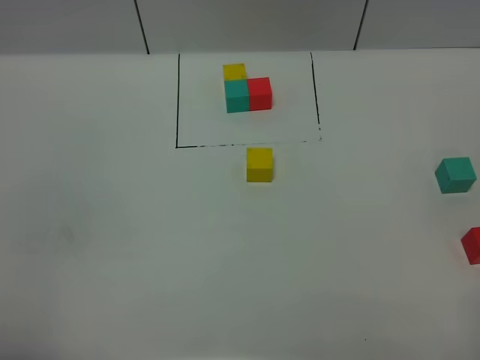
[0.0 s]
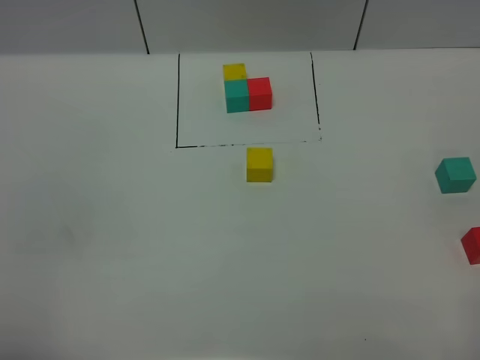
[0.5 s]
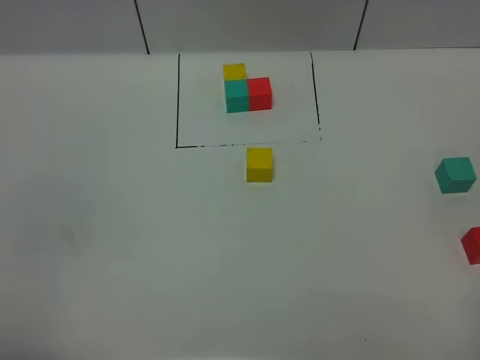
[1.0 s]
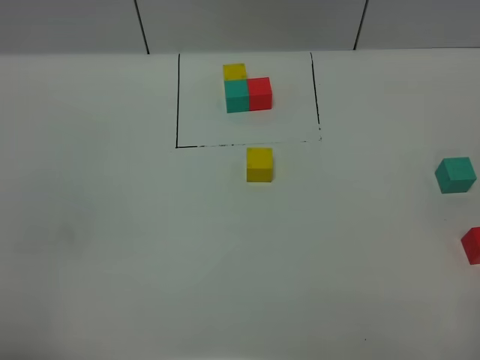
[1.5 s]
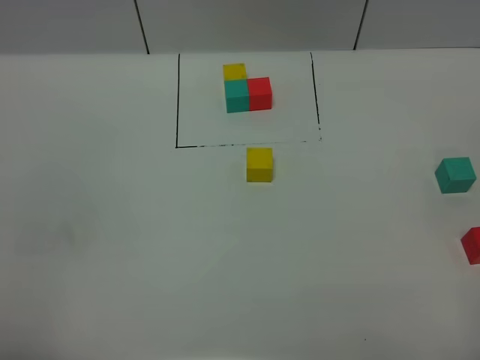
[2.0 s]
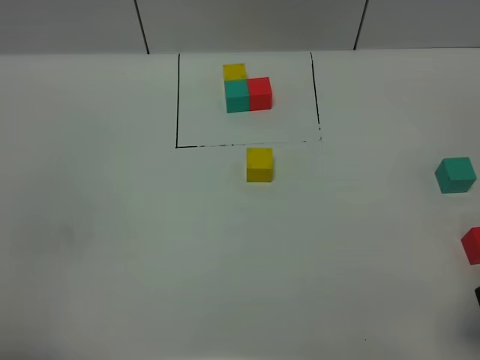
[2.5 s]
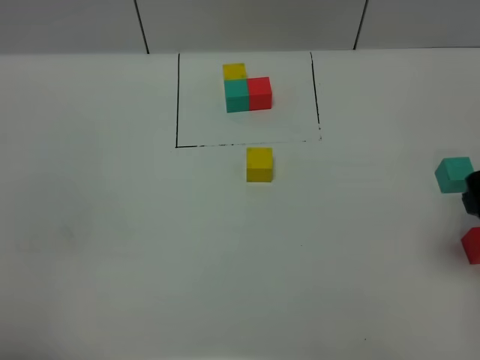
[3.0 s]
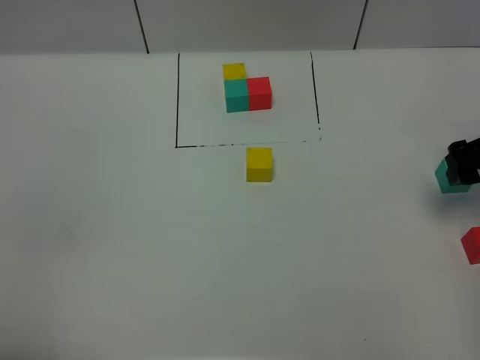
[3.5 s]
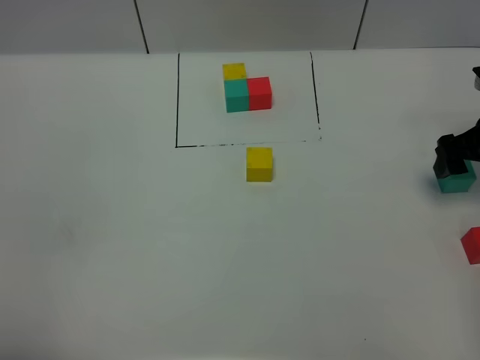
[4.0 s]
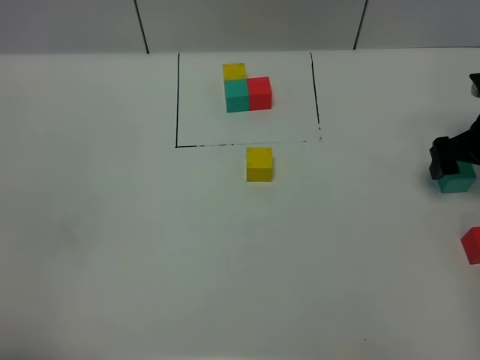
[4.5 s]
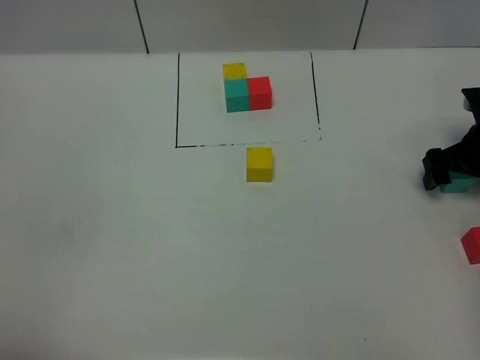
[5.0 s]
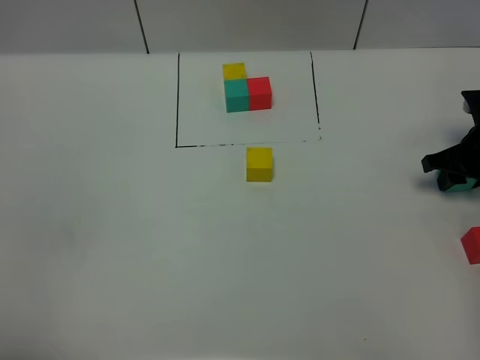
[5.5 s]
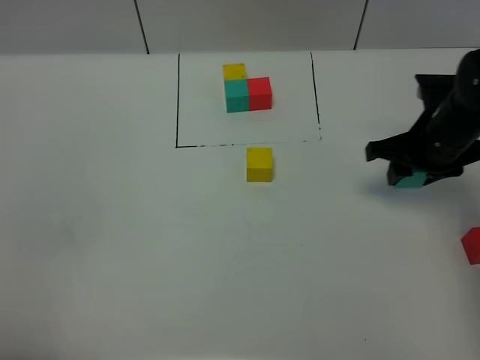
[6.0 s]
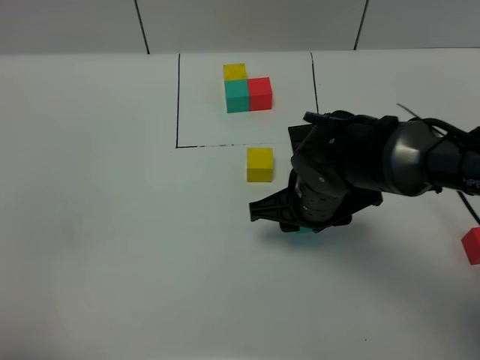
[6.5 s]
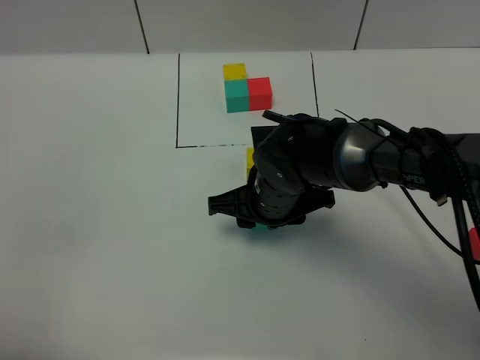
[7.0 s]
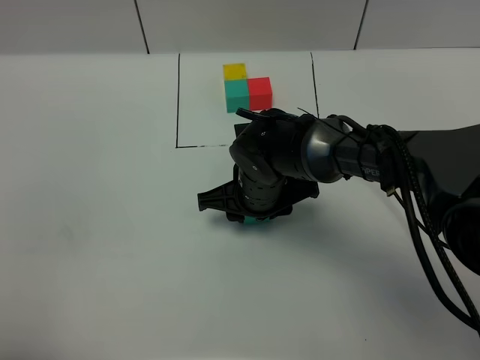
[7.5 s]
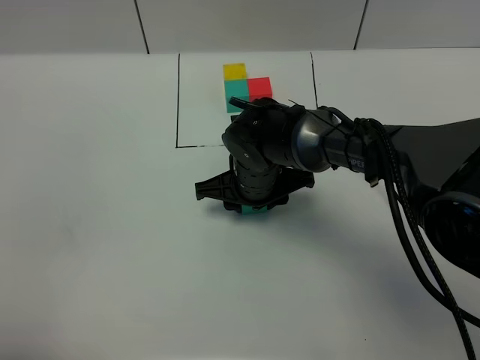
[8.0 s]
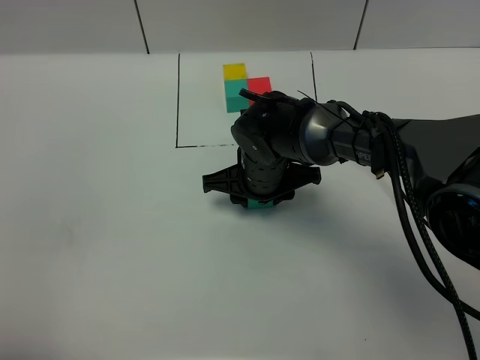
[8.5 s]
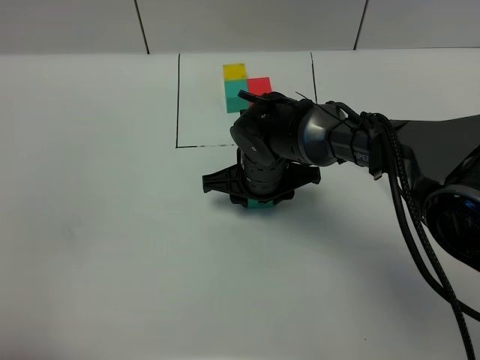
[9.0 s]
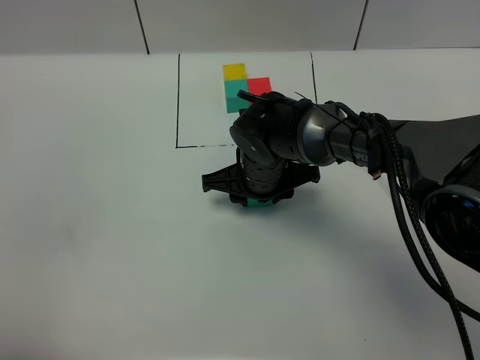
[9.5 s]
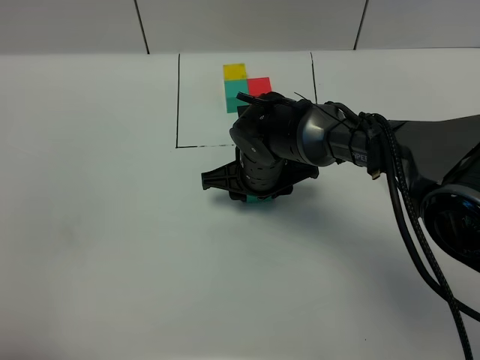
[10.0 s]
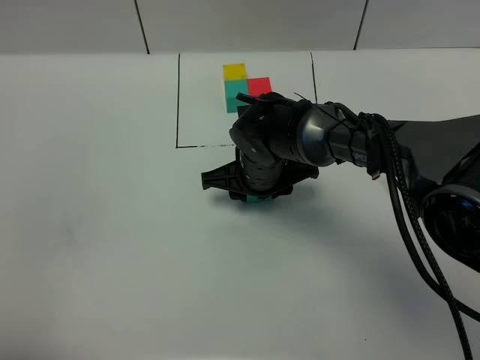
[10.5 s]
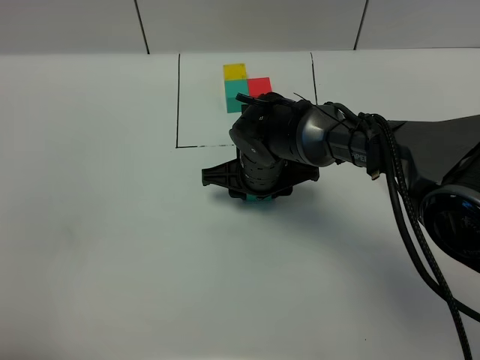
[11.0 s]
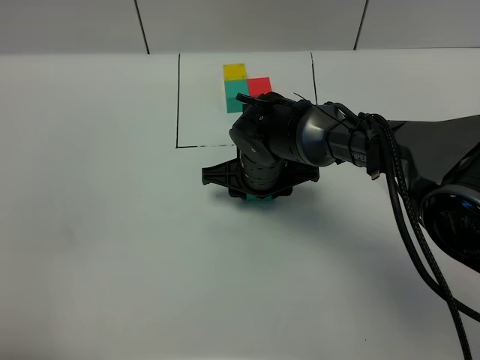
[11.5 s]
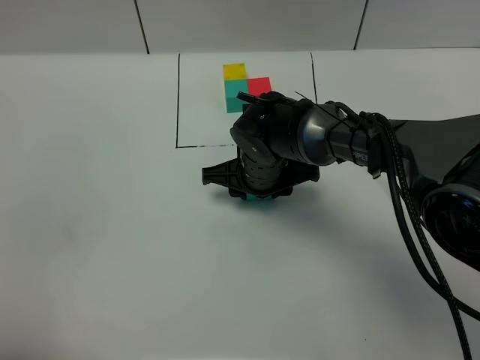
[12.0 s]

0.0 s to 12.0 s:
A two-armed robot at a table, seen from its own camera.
Task of the whole recording: According to the building block template in front, assemble the scattered blocks together.
2.0 to 4.0 s: The right gripper heads forward, covering some 35 cm.
4.0 to 6.0 s: The right gripper goes roughly 10 cm to the left, and closes.
6.0 to 8.0 s: The right gripper shifts approximately 20 cm to the left.
8.0 to 12.0 s: The grippers stay close to where they were, moving slightly.

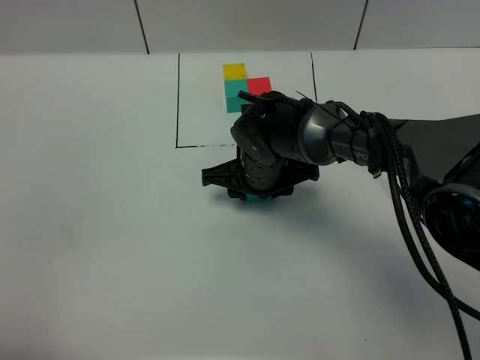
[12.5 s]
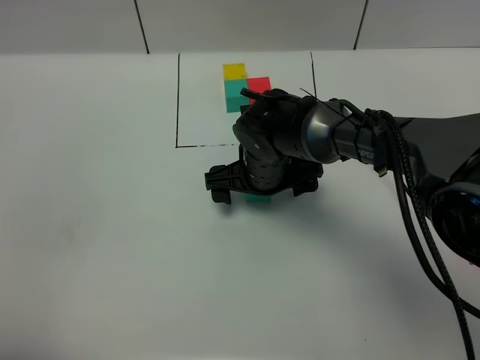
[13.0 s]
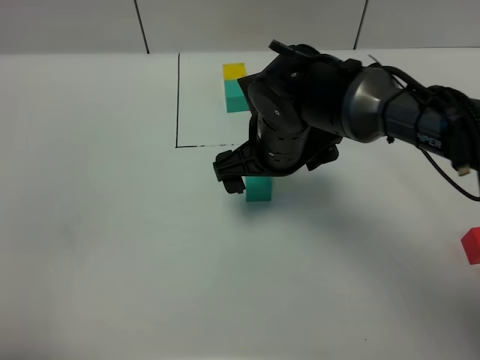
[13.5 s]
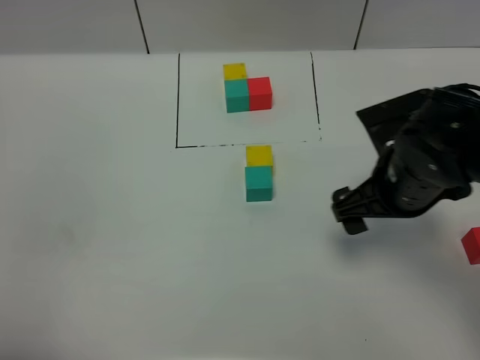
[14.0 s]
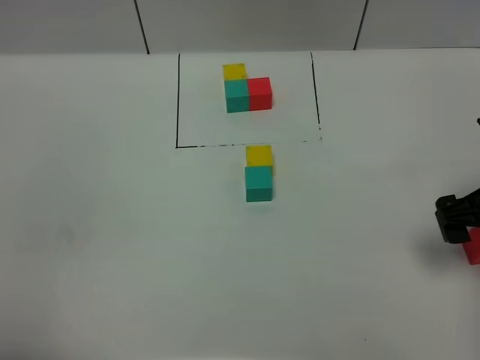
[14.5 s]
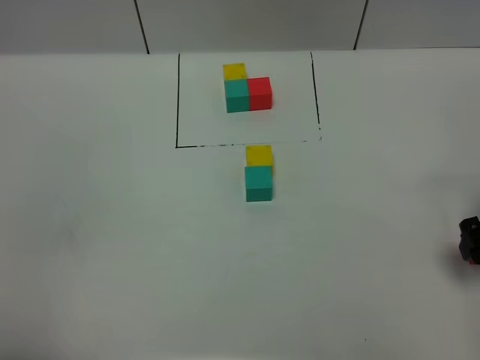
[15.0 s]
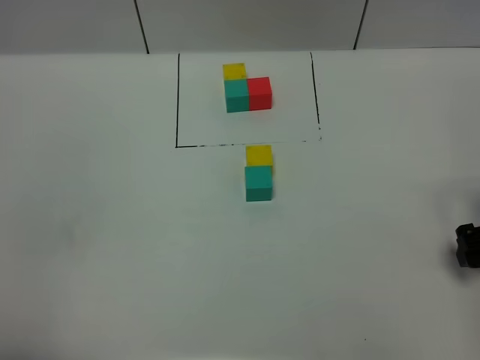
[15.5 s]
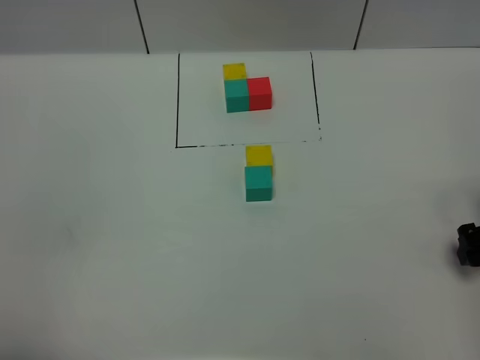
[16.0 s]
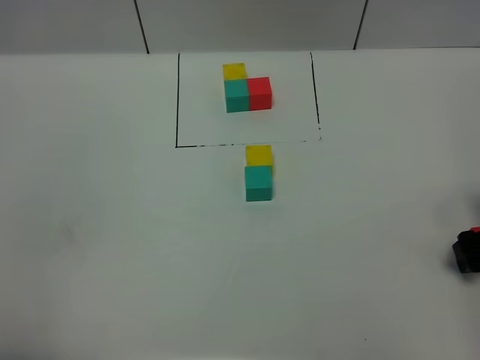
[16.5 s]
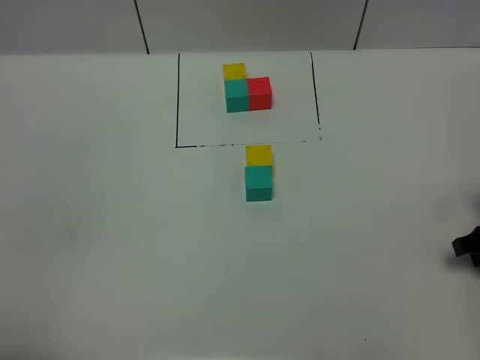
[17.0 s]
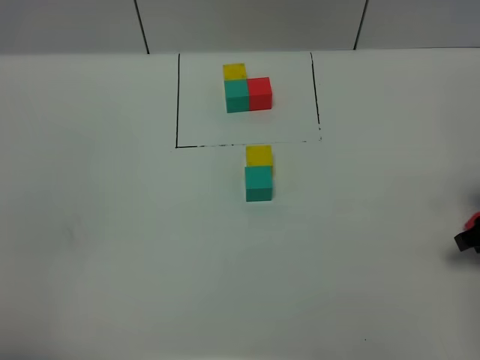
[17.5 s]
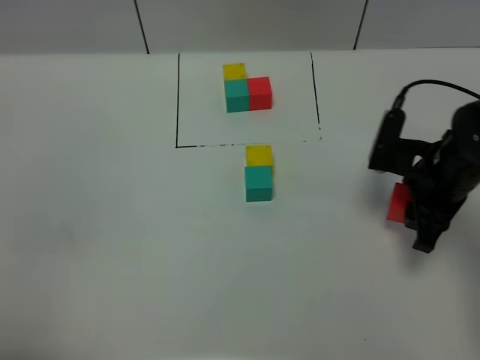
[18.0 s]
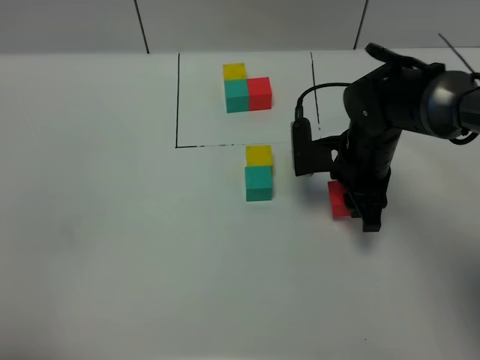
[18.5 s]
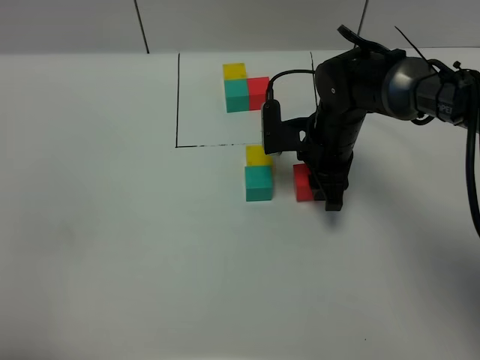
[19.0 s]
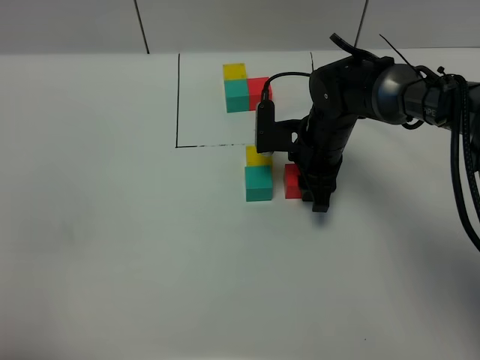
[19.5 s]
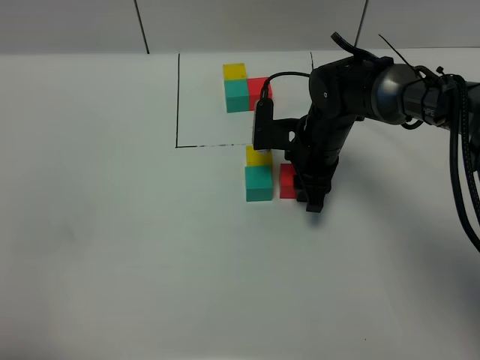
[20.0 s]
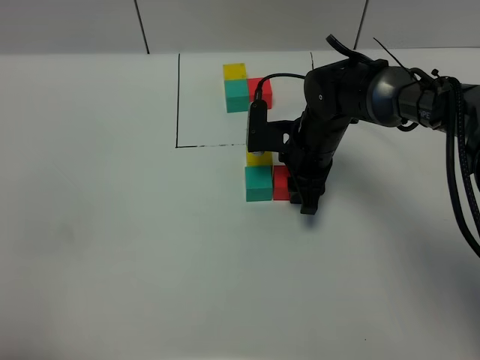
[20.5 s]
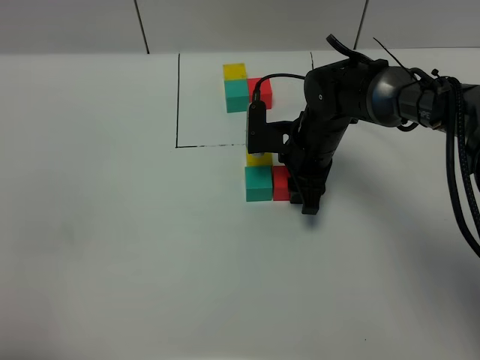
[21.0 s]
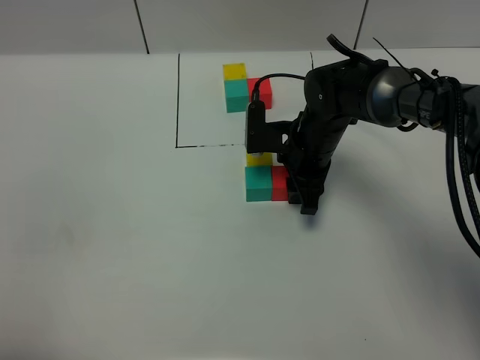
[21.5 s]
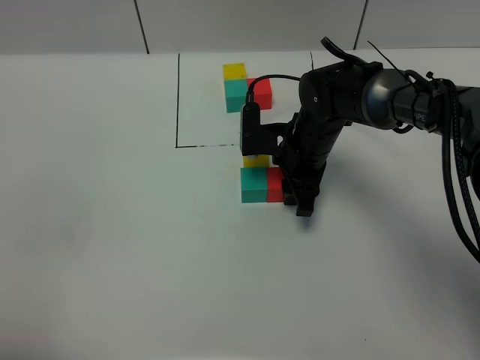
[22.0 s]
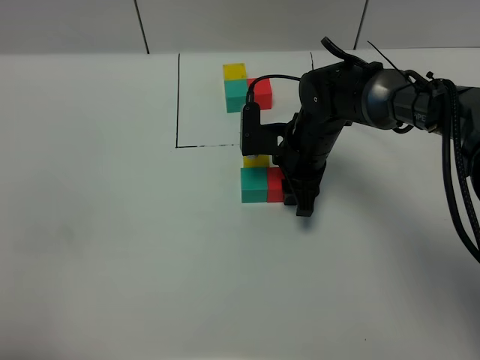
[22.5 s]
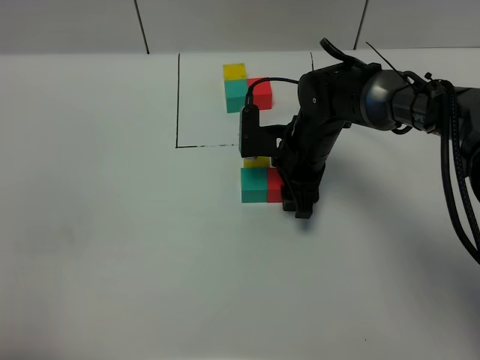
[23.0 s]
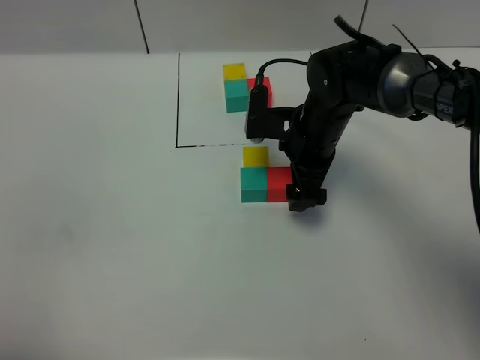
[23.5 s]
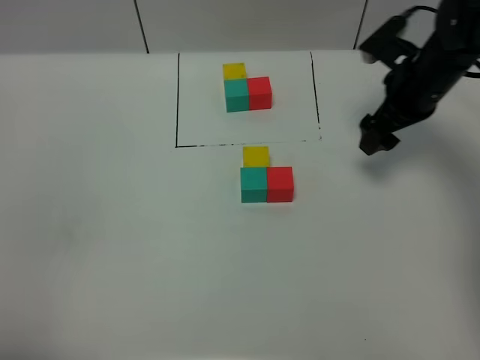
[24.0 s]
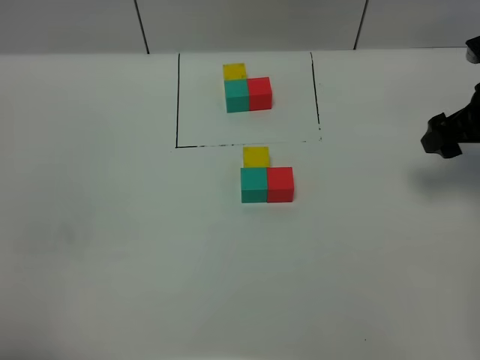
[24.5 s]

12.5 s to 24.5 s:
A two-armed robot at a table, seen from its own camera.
Task of the whole recording: According to the building block template in front, assemble the scattered blocks together.
Step, 13.0 to 23.0 s: Put the red build block on the right of the green build block.
12.5 to 14.5 s: The right gripper travels to the right and backward by about 30 cm, and opens up.
14.5 to 16.5 s: The right gripper travels downward and to the right by about 10 cm.
16.5 to 18.5 s: The right gripper moves to the left and forward, about 20 cm, and closes up.
18.5 to 20.5 s: The right gripper shifts by approximately 5 cm.
20.5 to 22.5 s: Neither gripper changes place.
22.5 to 24.5 s: The right gripper moves to the right and upward, about 25 cm, and opens its fingers.

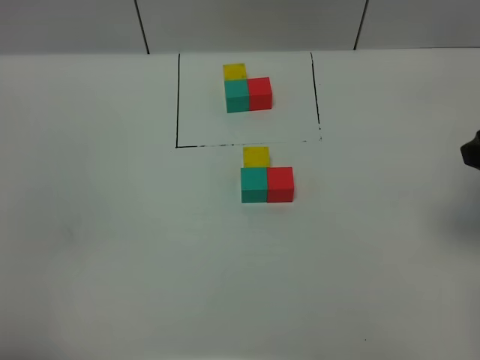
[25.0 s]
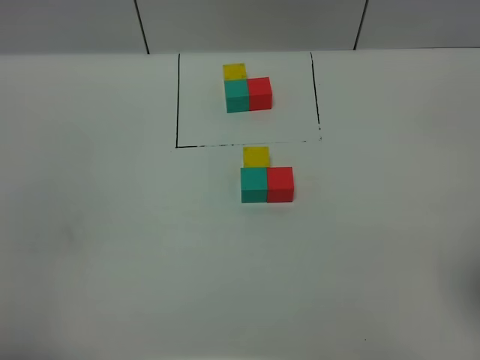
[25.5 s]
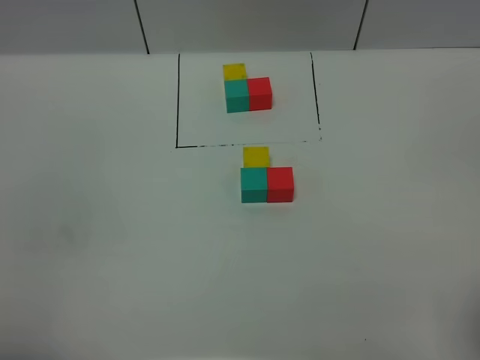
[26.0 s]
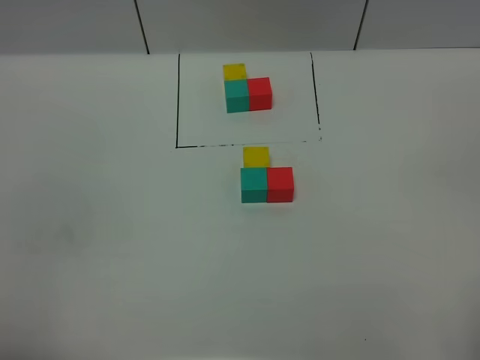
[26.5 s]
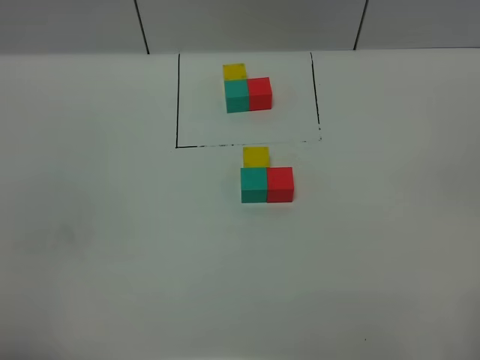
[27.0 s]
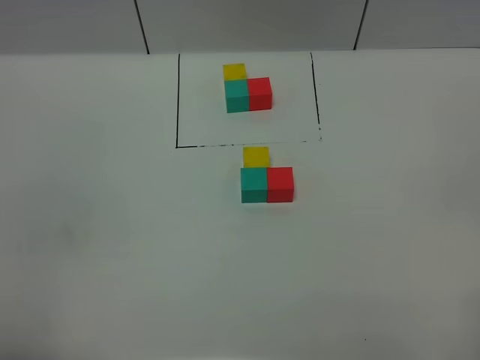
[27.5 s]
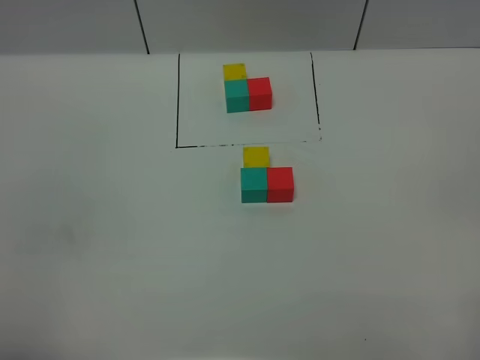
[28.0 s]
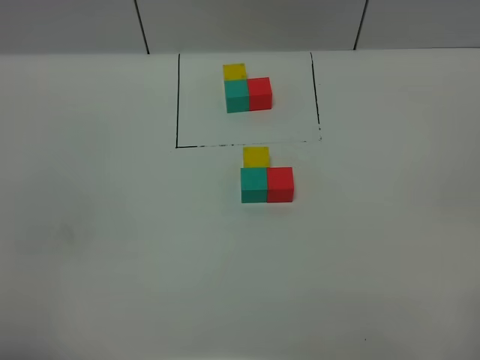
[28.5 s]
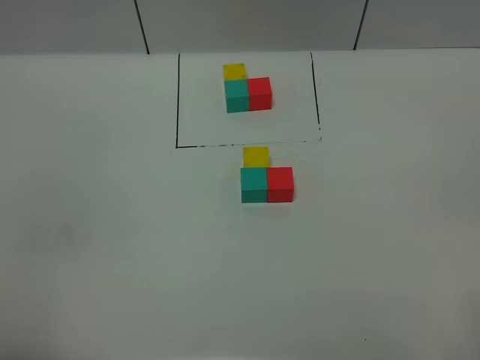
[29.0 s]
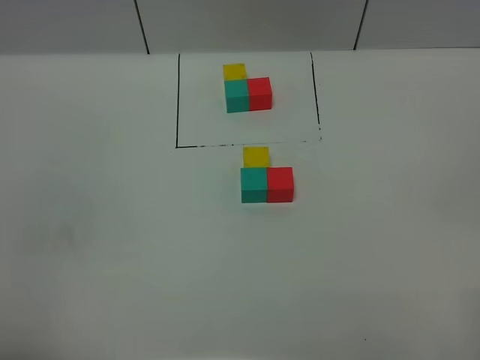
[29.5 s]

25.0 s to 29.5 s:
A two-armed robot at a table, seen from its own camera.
Task of the whole recording: According to the building block template in front, assemble the scattered blocks together.
25.0 to 27.0 s: The right gripper is displaced backward by some 20 cm.
